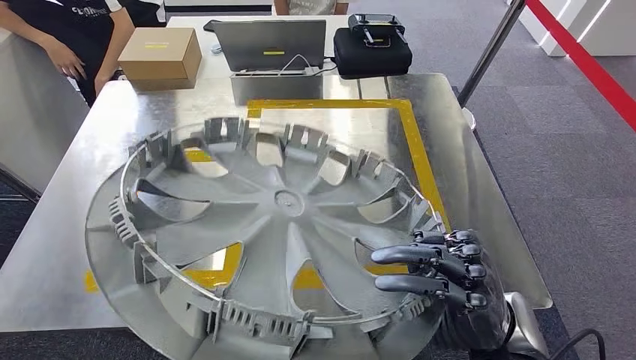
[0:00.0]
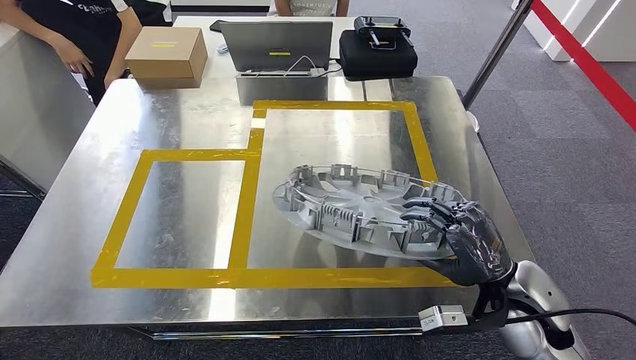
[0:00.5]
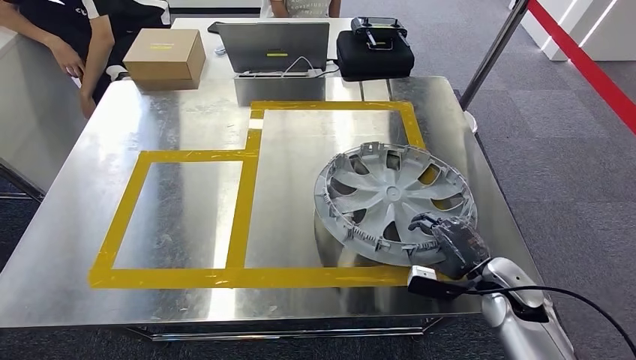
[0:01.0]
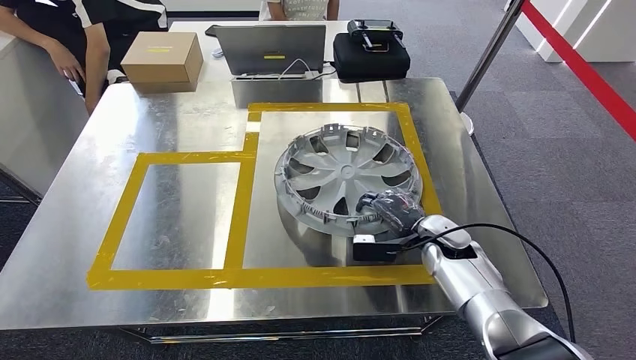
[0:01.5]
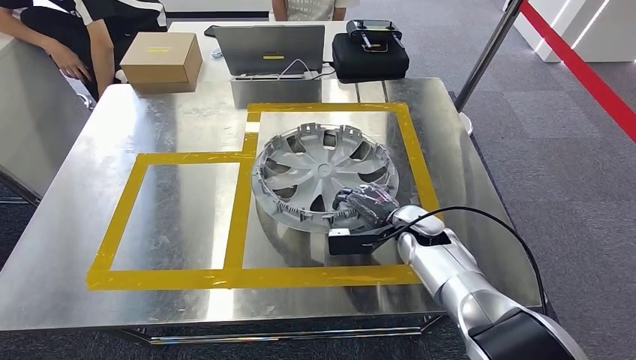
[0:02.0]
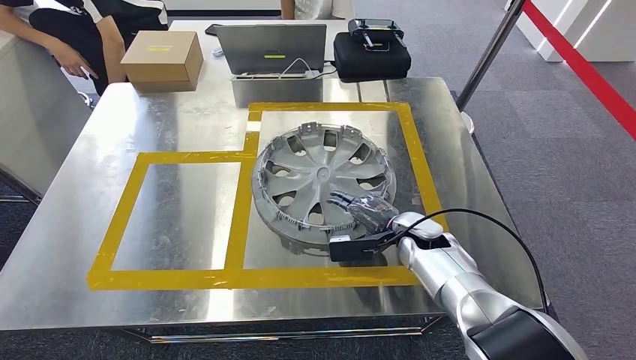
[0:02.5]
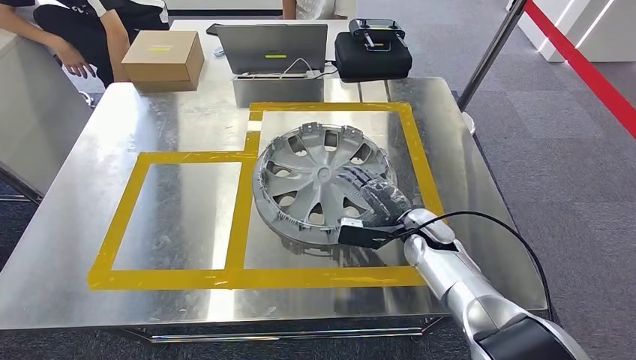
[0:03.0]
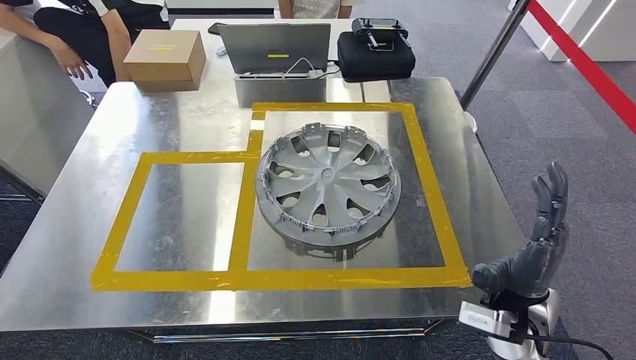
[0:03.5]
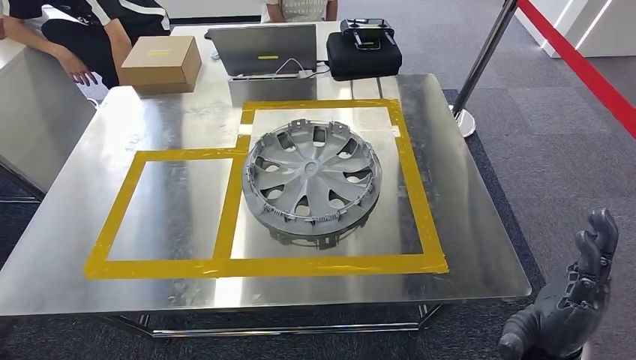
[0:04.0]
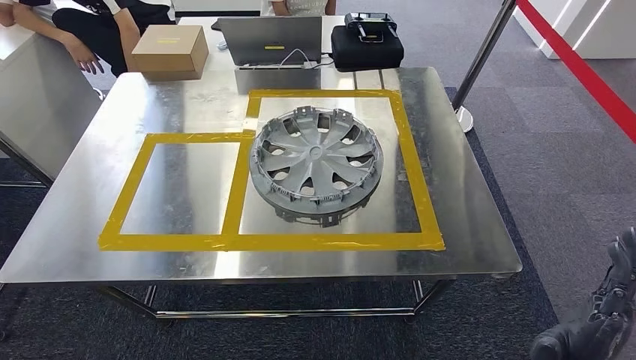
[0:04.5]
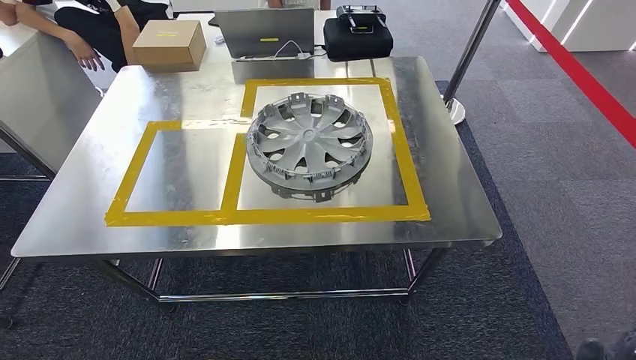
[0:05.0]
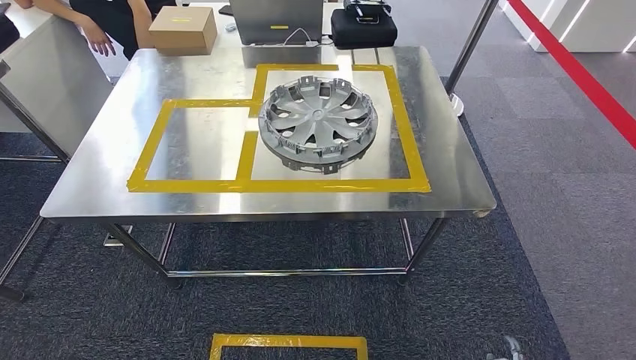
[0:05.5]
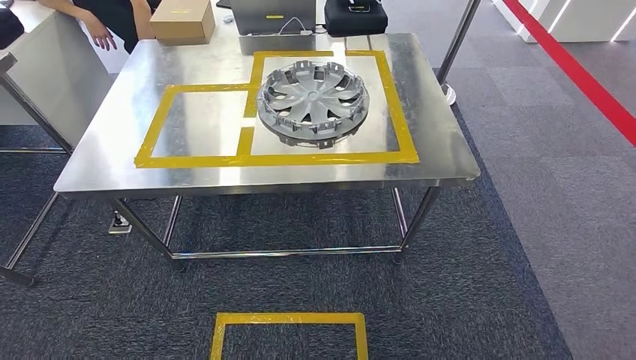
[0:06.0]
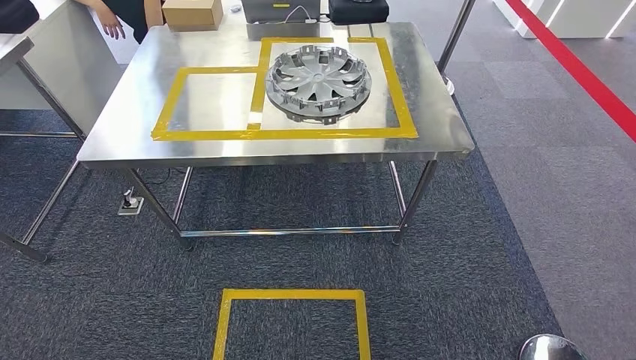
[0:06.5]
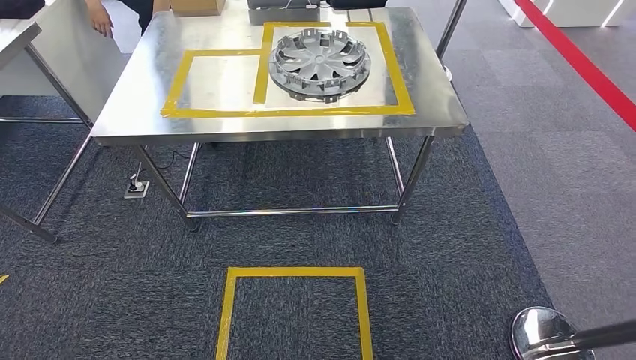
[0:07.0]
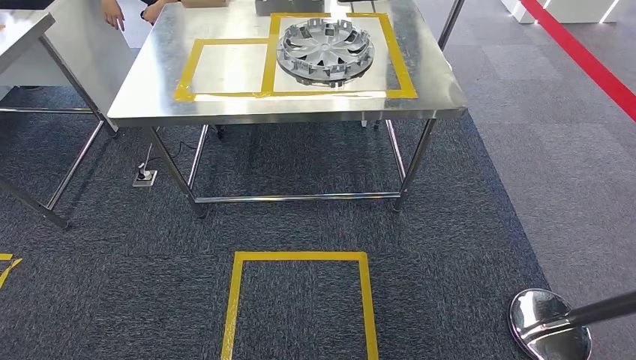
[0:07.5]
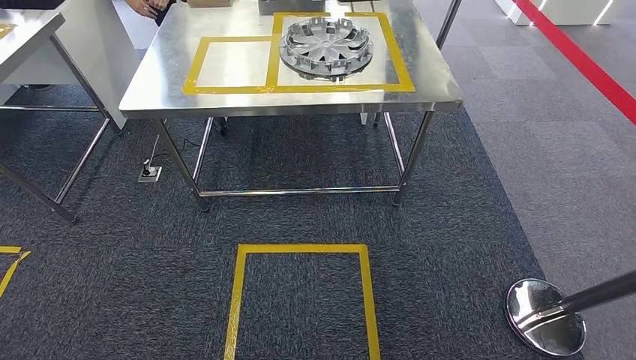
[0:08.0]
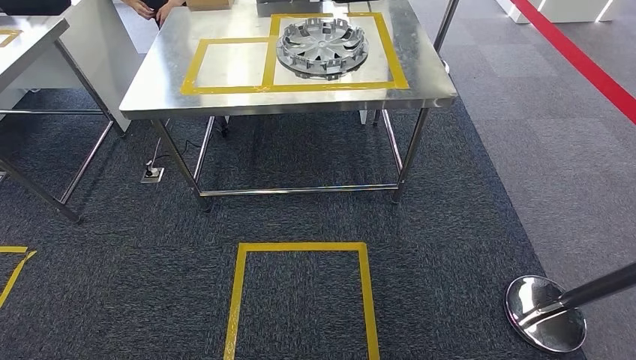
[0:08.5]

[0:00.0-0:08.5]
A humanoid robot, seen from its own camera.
Step, 0:00.0 to 0:02.5: Insert the small component into the corresponding slot on the workbench.
Step, 0:03.0 to 0:08.5: Move to the initial position at the workbench.
